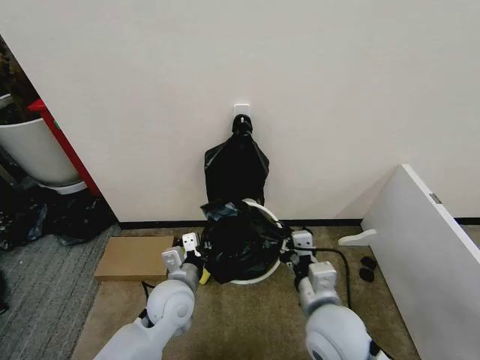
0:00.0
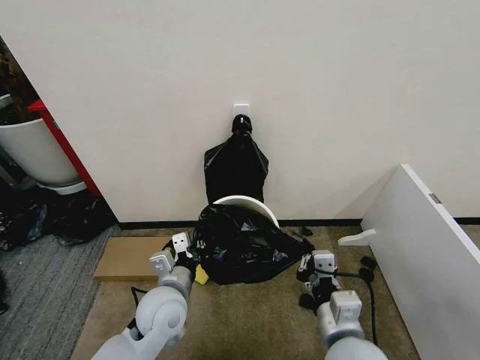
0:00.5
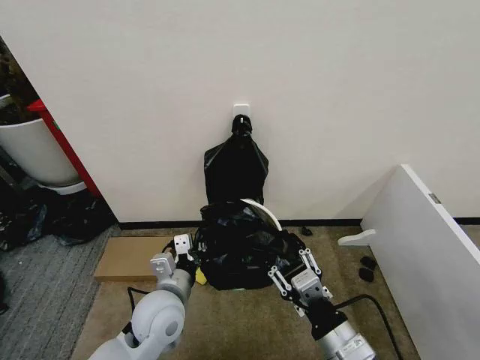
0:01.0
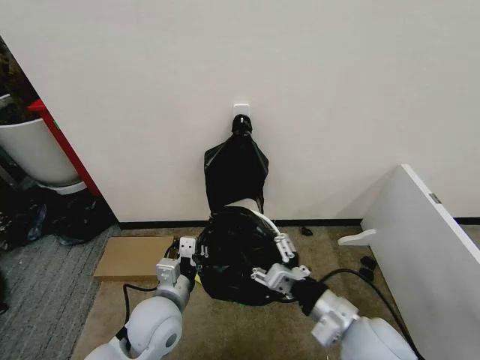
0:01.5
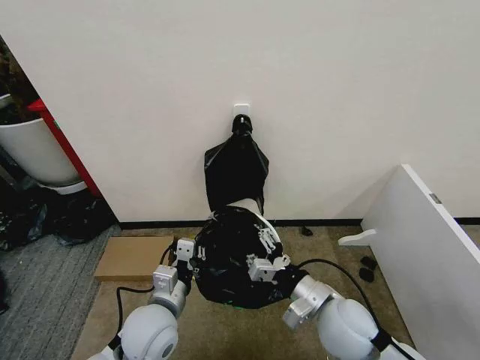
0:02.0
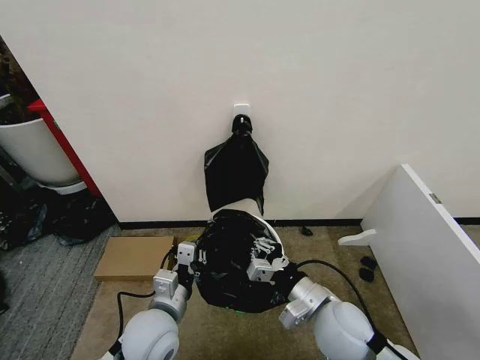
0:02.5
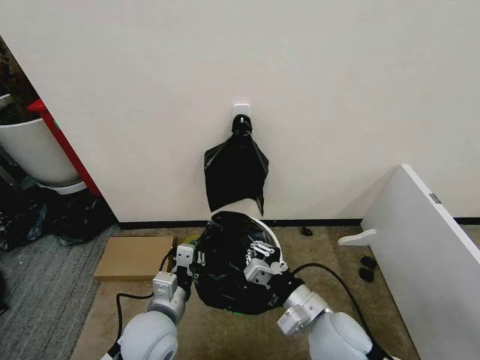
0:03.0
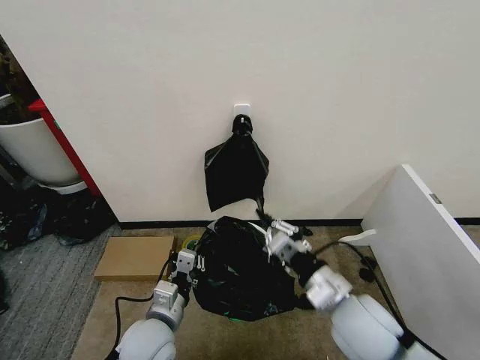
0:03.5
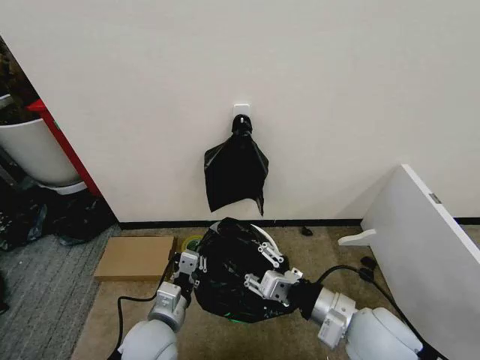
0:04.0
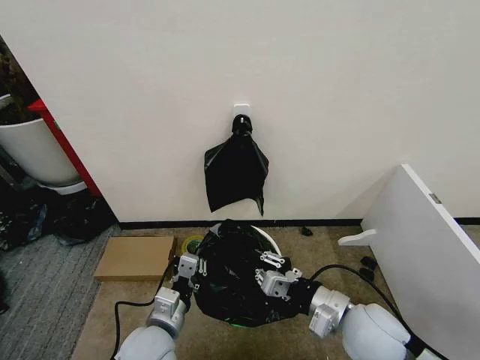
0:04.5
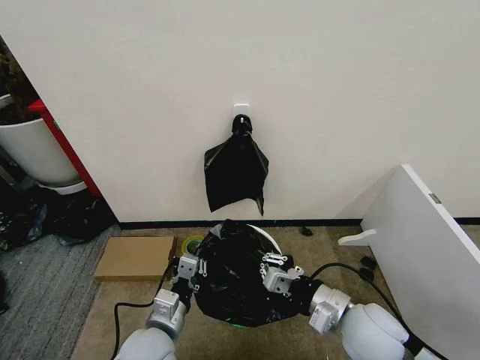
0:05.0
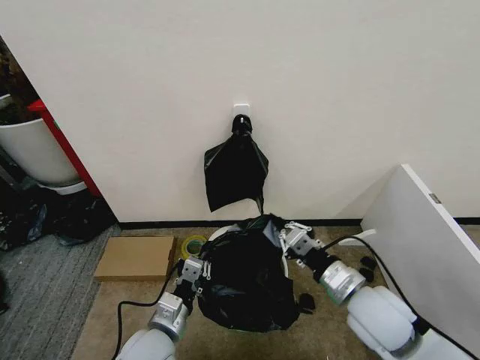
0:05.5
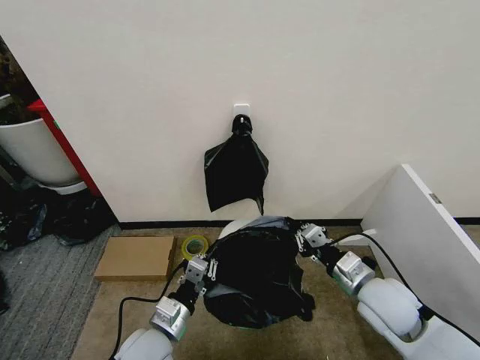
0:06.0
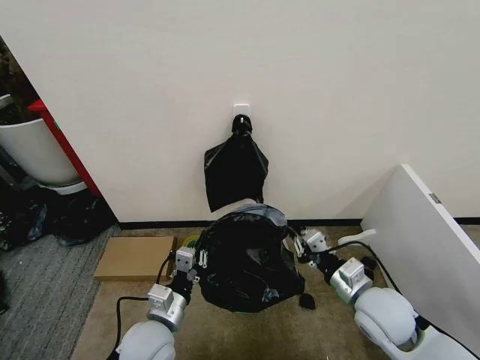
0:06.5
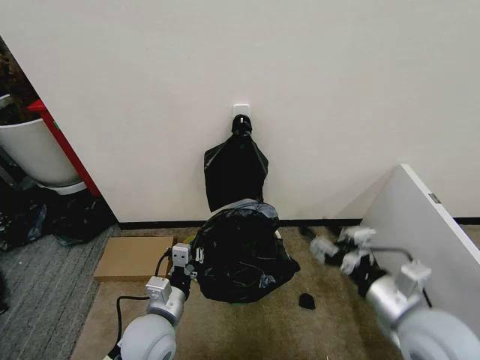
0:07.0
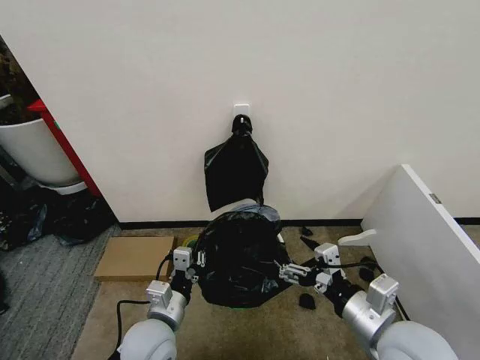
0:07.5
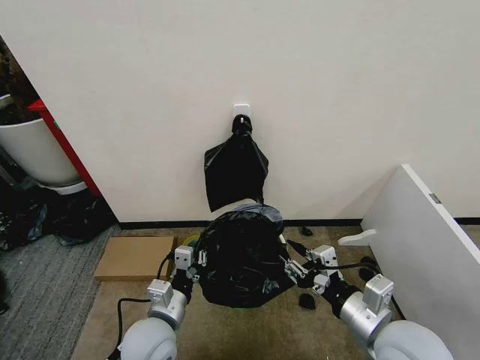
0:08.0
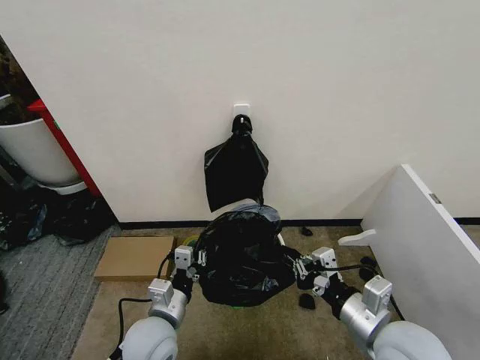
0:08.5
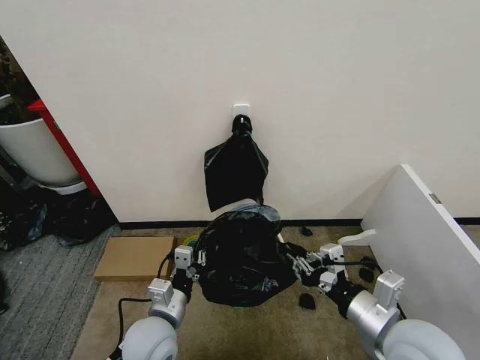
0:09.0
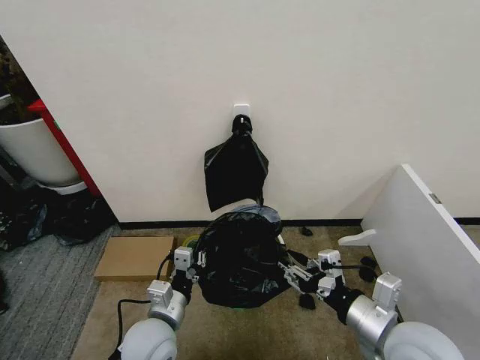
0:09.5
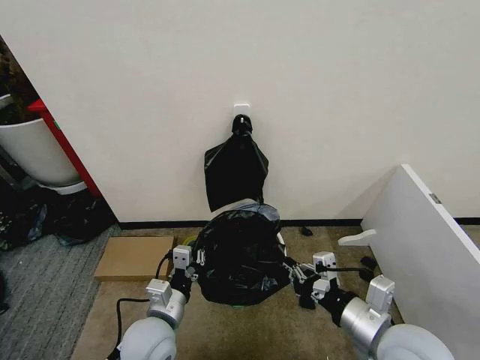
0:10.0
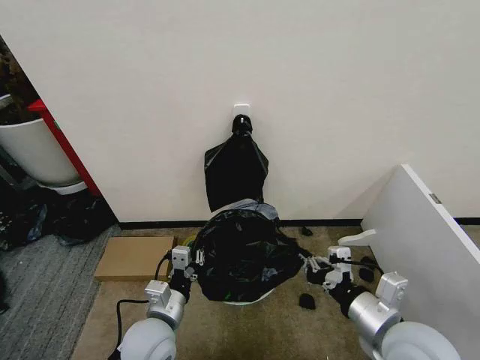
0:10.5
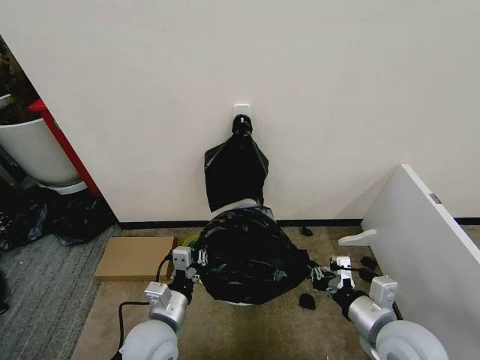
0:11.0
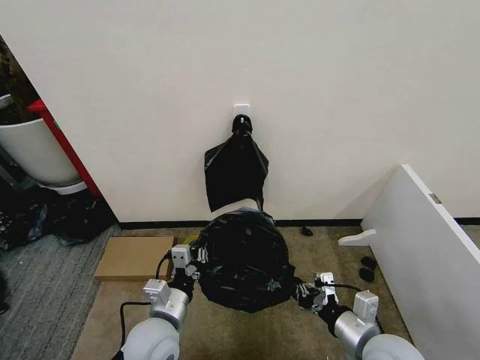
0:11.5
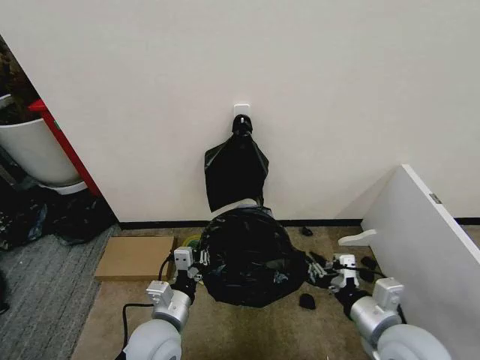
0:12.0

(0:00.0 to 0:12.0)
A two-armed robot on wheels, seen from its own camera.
Task of the whole recording: Place the garbage bag over the trash bin.
0:00.0 - 0:02.0: The right gripper goes backward and returns, some 10 cm each way, and opens up. Meanwhile the left gripper is displaced backward by approximately 5 cm.
0:02.0 - 0:04.0: The right gripper changes place by approximately 5 cm, and closes and opens again.
0:04.0 - 0:06.0: The right gripper goes approximately 10 cm forward and to the right, and closes.
0:06.0 - 0:08.0: The right gripper moves backward, approximately 10 cm, and opens its fingers.
0:08.0 - 0:10.0: The right gripper closes up.
0:10.0 - 0:12.0: The right gripper travels downward by approximately 5 cm.

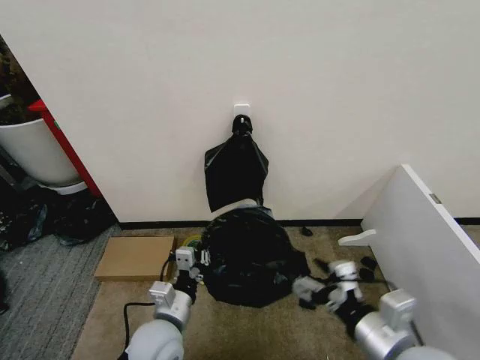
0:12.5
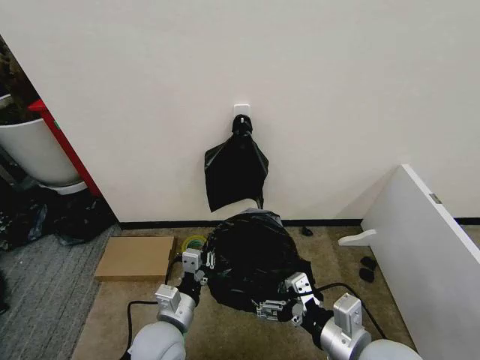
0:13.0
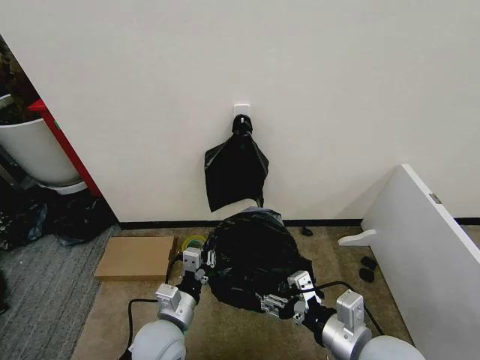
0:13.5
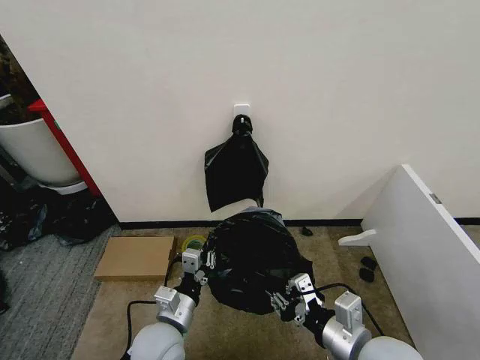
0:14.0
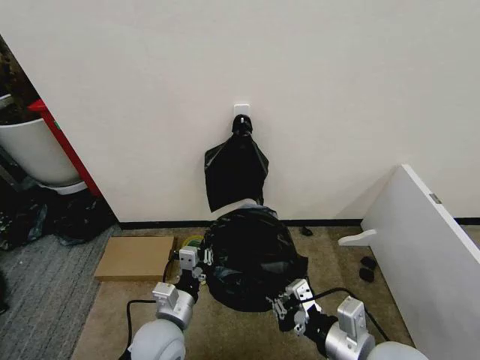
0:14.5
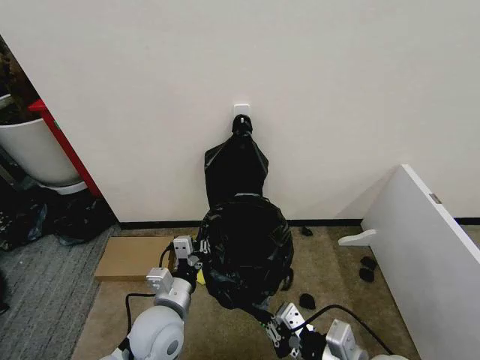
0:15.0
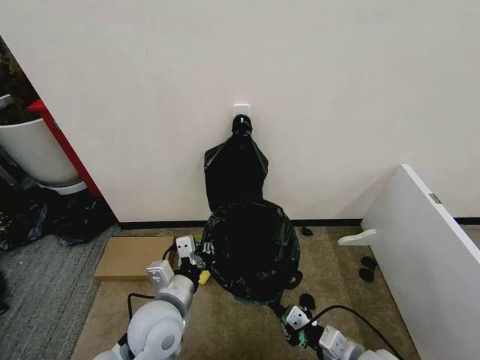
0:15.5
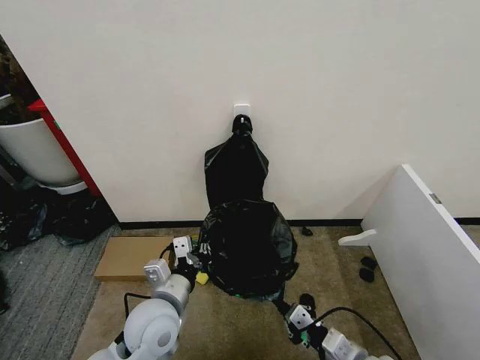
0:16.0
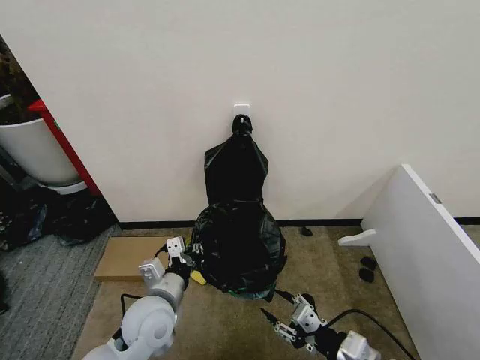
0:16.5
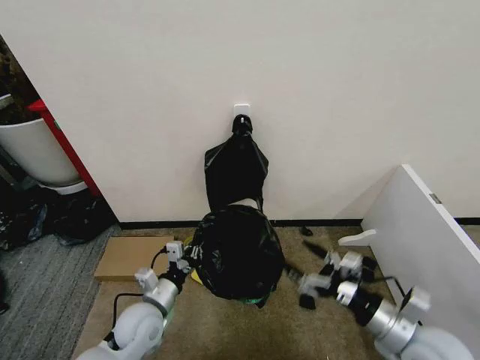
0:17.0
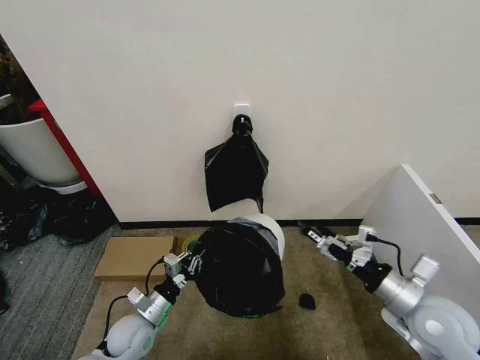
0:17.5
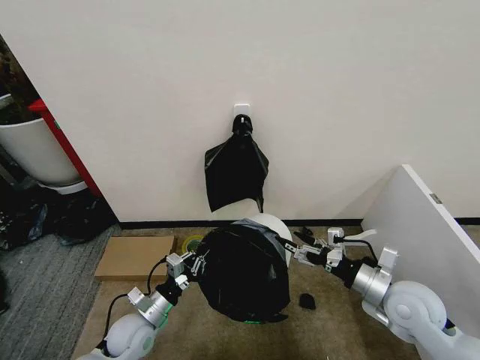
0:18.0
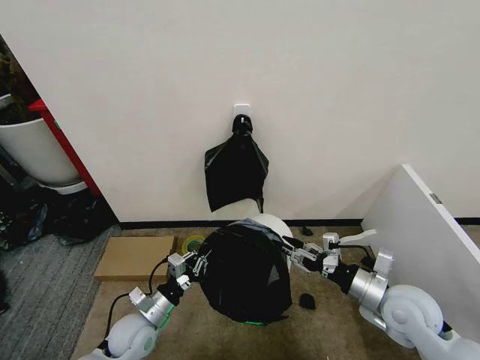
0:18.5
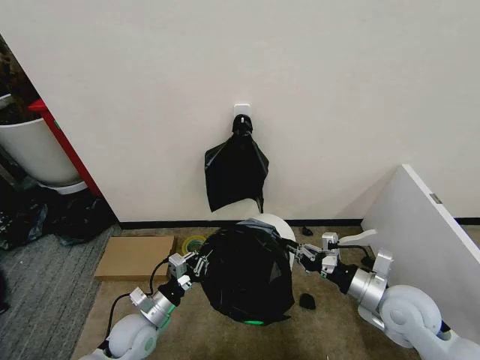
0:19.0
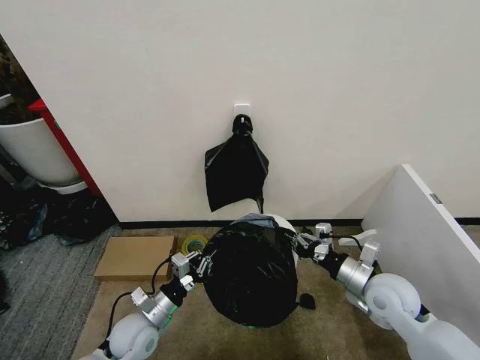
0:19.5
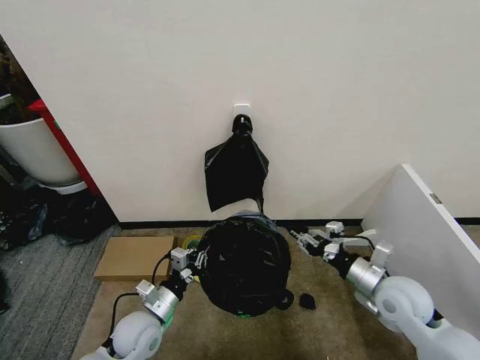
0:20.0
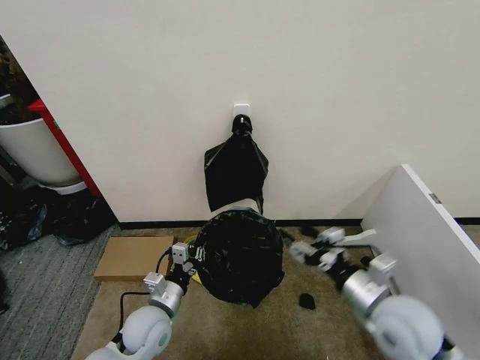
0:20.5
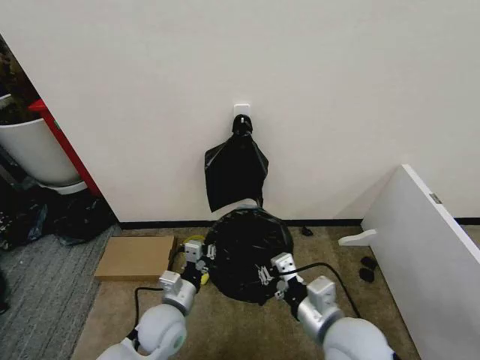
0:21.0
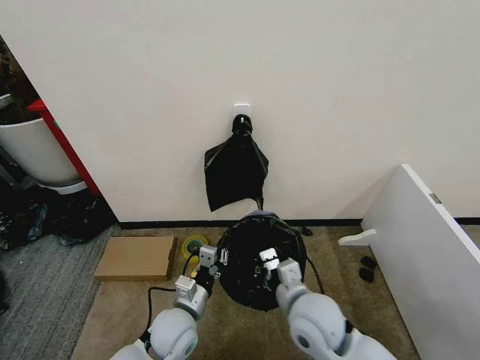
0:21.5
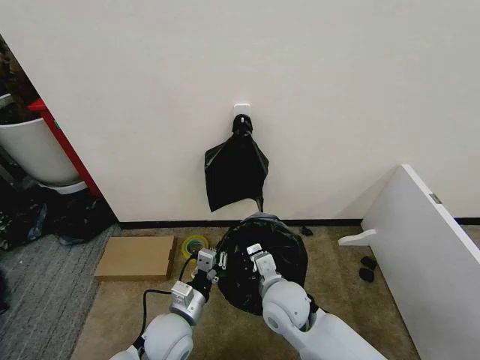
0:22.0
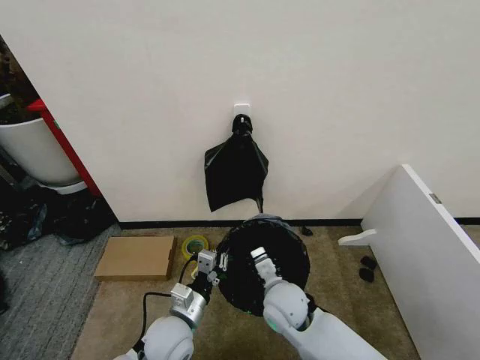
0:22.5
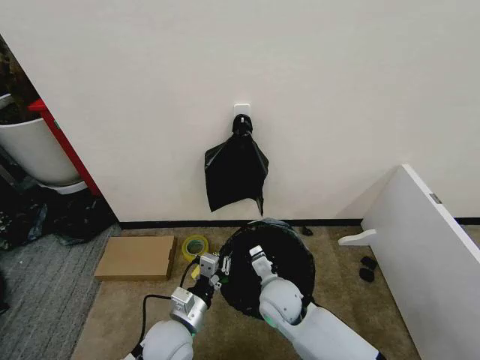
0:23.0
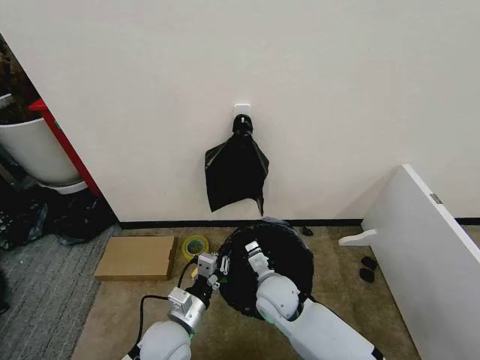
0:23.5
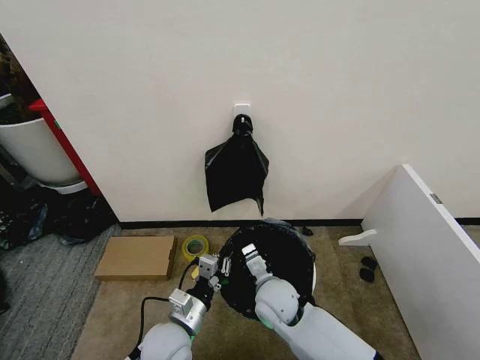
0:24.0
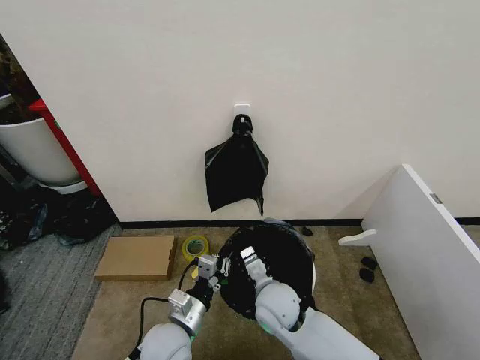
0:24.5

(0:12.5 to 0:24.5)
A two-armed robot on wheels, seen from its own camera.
Task of the whole recording: Place the garbage bag over the trash bin.
0:12.5 - 0:14.5: The right gripper closes its fingers.
0:14.5 - 0:16.5: The right gripper travels downward by roughly 5 cm, and opens; the left gripper changes place by approximately 5 cm.
0:16.5 - 0:18.5: The right gripper moves forward and to the right, approximately 15 cm, and opens, then closes again. The left gripper shifts some 15 cm downward and to the left.
0:18.5 - 0:20.5: The left gripper moves approximately 5 cm. The right gripper shifts by some 5 cm, and closes, then reopens.
0:20.5 - 0:22.5: The right gripper heads to the left and downward, covering roughly 20 cm, and closes. The left gripper travels to the right by approximately 5 cm.
0:22.5 - 0:24.5: The grippers make only small movements.

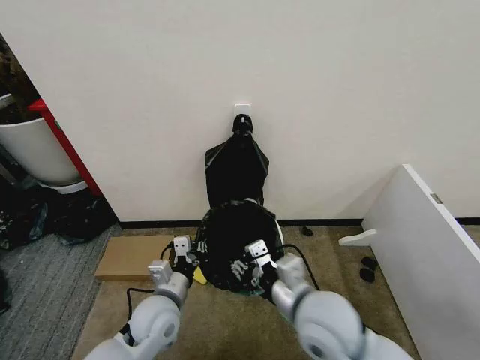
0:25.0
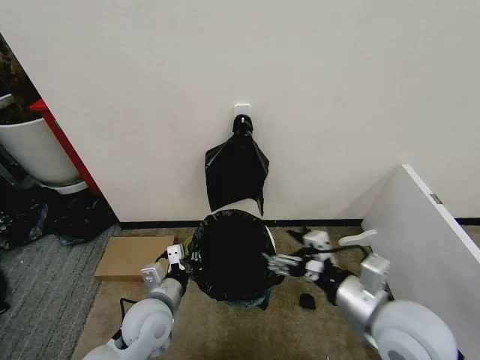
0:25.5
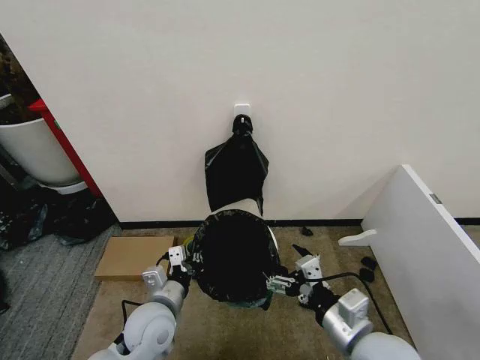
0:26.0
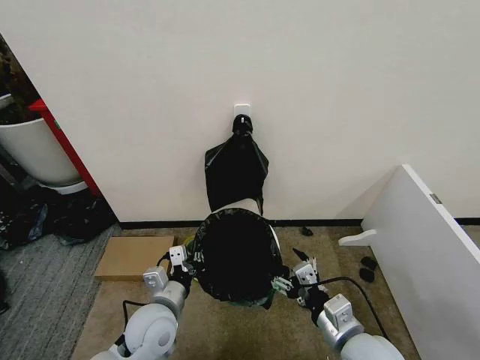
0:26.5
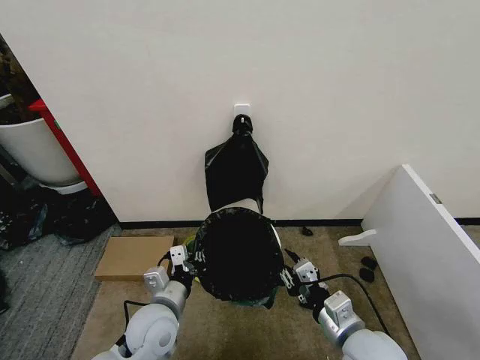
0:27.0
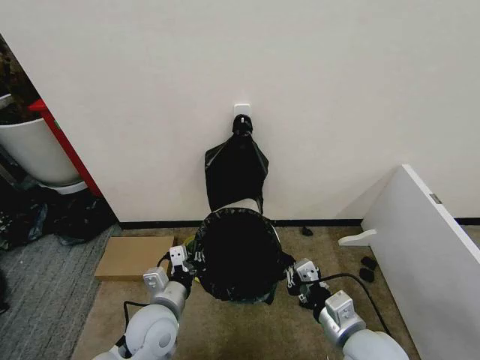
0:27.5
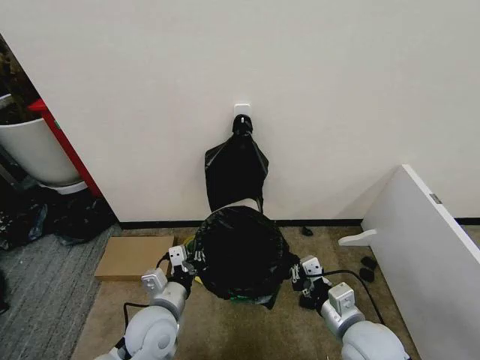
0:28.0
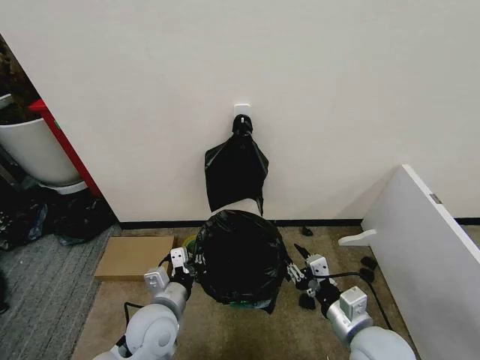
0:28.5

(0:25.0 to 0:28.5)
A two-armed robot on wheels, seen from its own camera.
Task of the whole recording: Place the garbage bag over the trash bin.
0:25.0 - 0:27.0: The right gripper shifts about 10 cm downward and to the right, and opens, then closes again.
0:27.0 - 0:28.5: The grippers move only a little.
